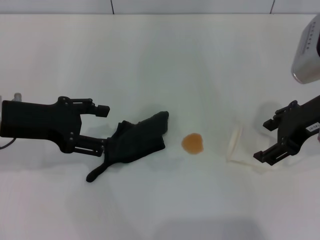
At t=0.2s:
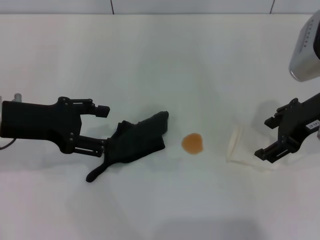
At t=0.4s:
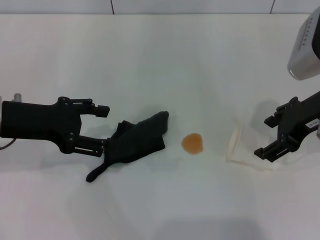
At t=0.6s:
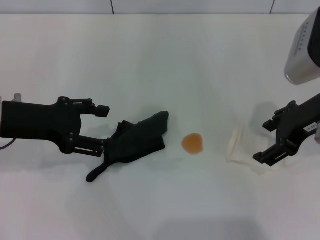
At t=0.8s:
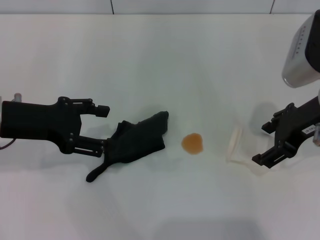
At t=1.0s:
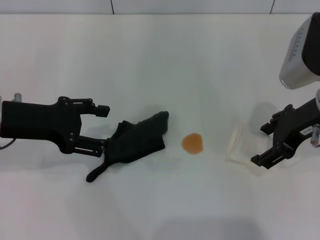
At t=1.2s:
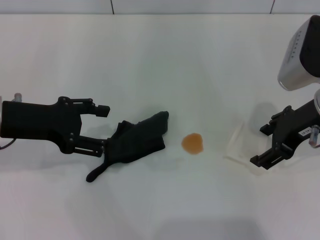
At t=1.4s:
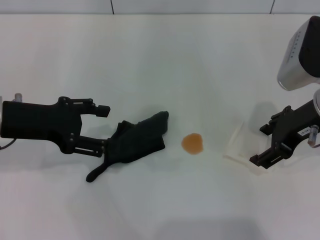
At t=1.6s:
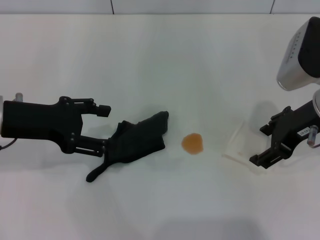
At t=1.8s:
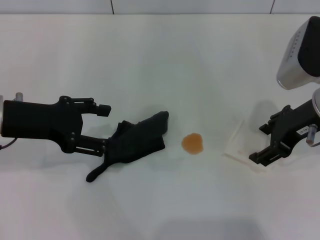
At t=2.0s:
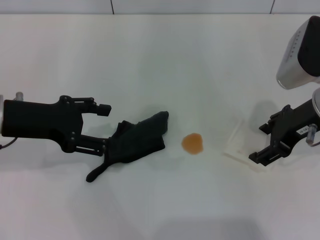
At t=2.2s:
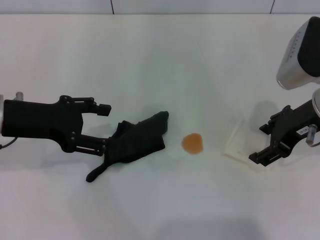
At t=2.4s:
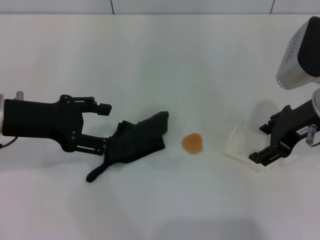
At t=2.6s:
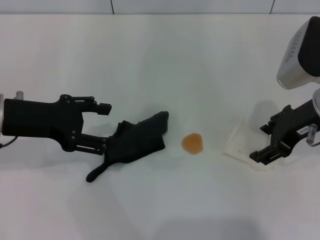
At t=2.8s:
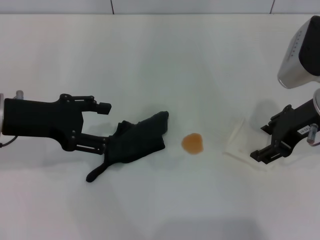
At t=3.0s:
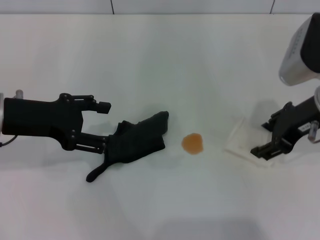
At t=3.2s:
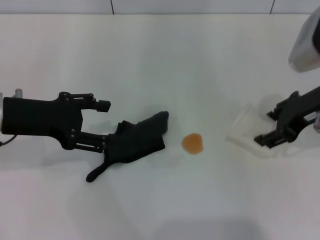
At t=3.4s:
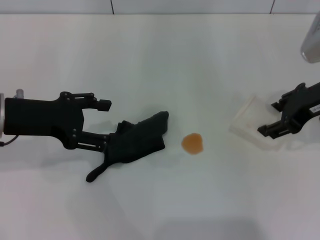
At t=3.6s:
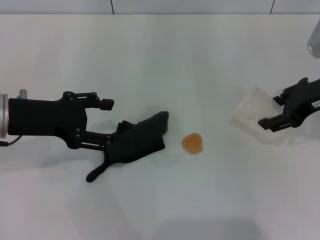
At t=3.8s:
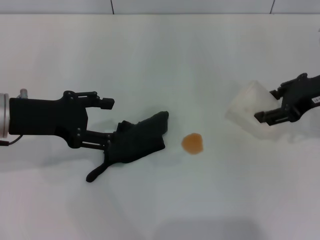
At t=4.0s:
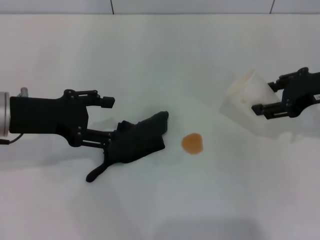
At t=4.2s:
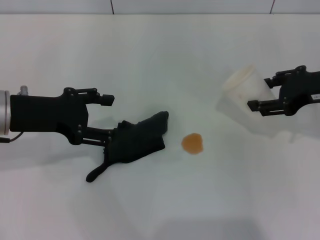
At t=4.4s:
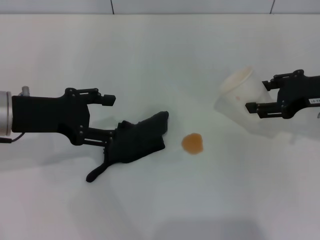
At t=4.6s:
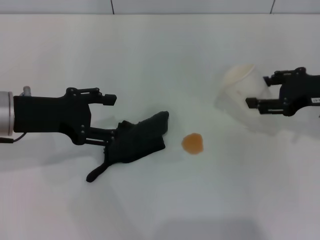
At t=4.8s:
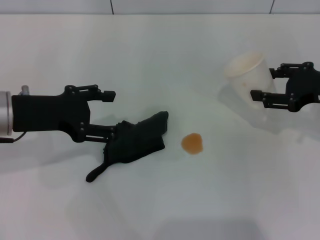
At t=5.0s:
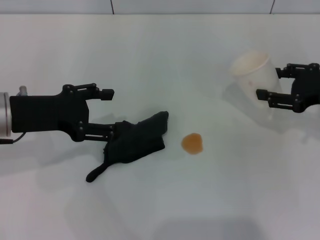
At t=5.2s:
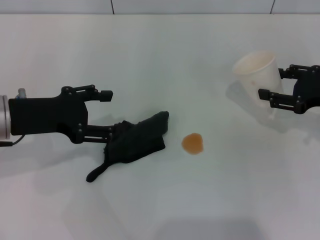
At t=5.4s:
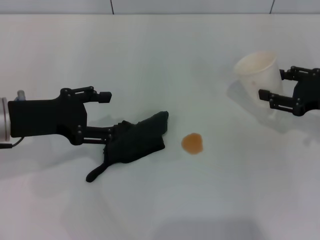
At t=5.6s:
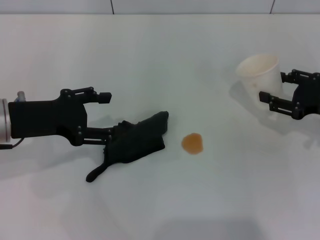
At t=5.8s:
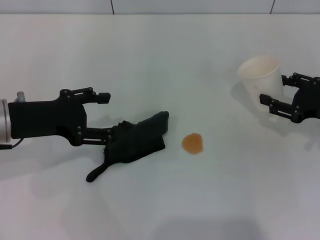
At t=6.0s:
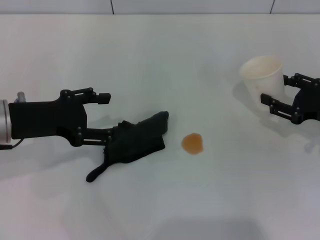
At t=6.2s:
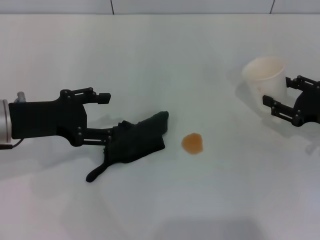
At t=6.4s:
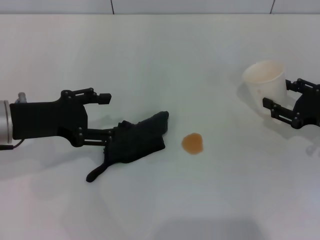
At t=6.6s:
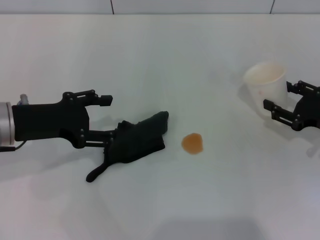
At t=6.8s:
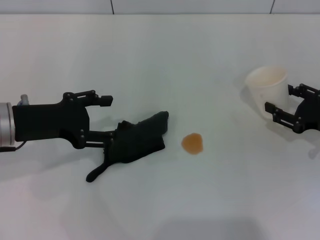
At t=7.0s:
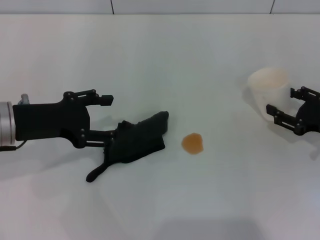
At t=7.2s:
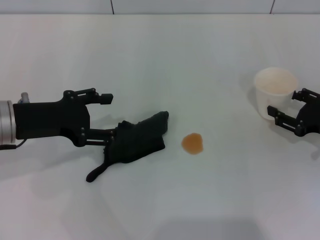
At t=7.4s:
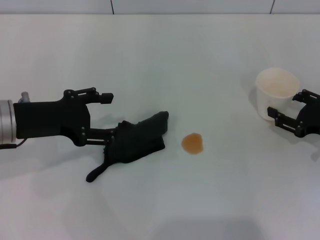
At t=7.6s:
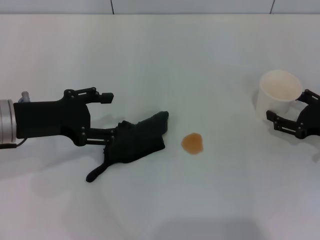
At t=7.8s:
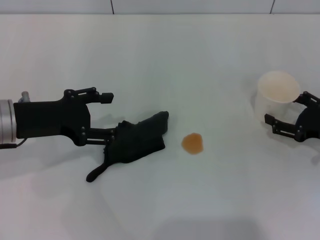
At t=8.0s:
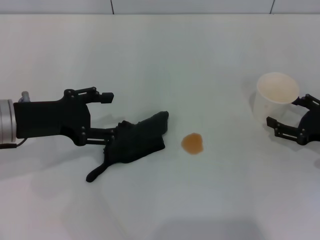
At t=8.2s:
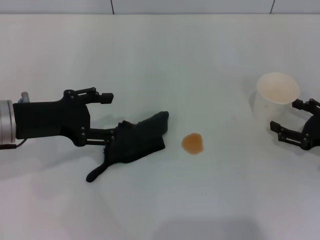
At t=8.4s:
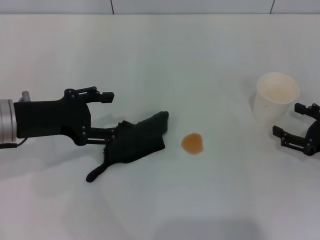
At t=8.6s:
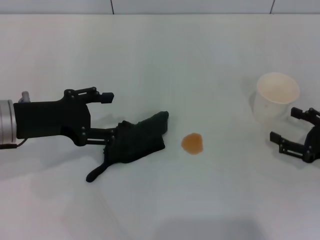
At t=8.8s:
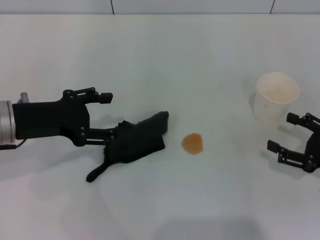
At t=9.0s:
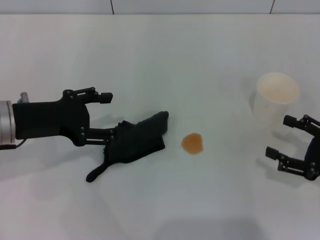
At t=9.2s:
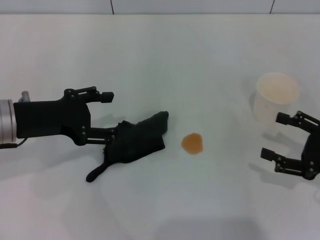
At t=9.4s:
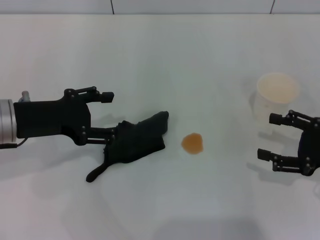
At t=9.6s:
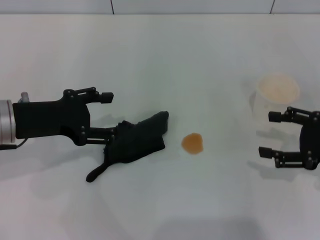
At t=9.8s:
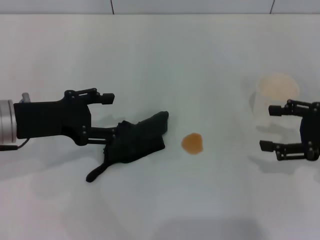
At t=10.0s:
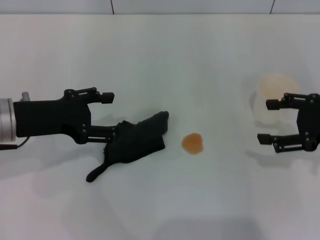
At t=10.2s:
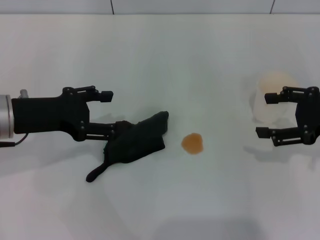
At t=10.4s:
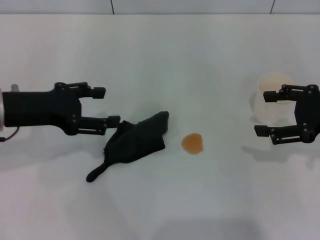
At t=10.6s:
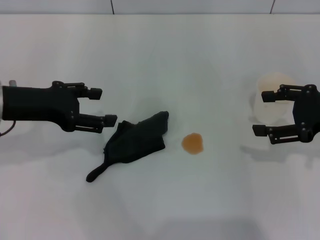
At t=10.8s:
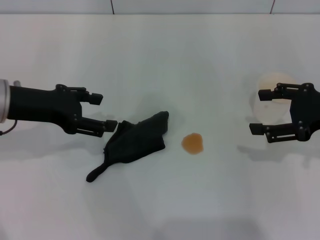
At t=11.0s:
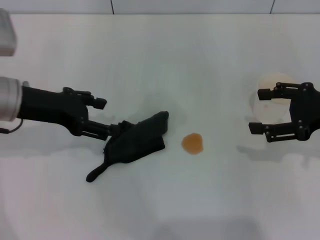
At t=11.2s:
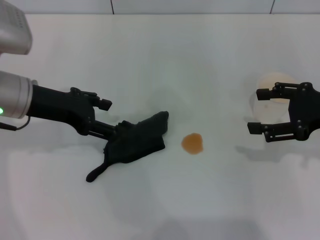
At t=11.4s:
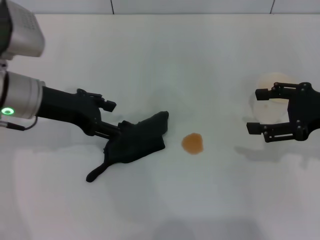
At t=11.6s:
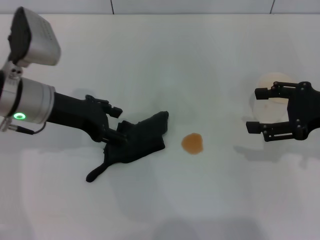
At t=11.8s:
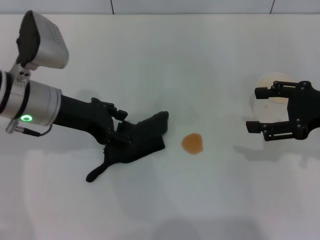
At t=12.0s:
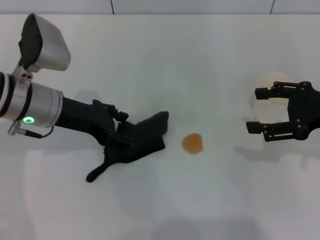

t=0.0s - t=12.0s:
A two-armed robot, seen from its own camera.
Step, t=0.0s - t=2.0s: Grasp the paper cup with the right gripper.
Step, t=2.4s - t=8.4s: Stand the paper cup upright with the right gripper.
t=0.0s - t=1.6s: The grippers stay close to where they were, moving slightly.
t=1.6s - t=3.0s: The right gripper closes up.
t=3.0s - t=4.4s: The right gripper moves to the right, some 5 cm.
t=4.4s - t=6.0s: The right gripper travels downward by some 10 cm.
t=6.0s - t=7.6s: The right gripper opens.
t=7.6s - t=9.0s: The right gripper heads backward, covering about 5 cm, and opens.
t=9.0s - t=10.4s: The right gripper travels upward and forward by some 10 cm.
t=10.4s - t=12.0s: The left gripper is displaced to the right by some 5 cm.

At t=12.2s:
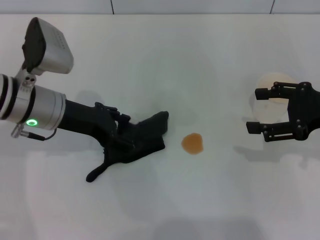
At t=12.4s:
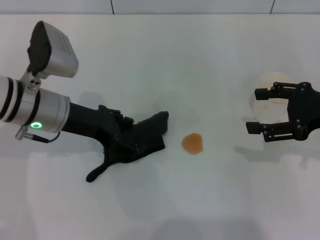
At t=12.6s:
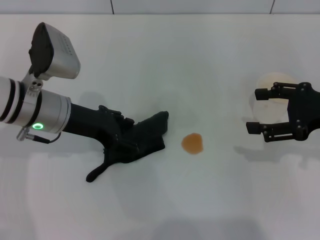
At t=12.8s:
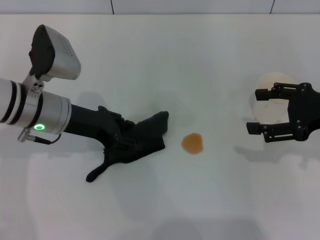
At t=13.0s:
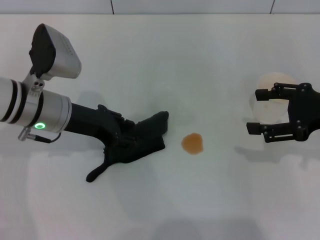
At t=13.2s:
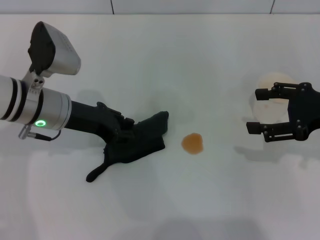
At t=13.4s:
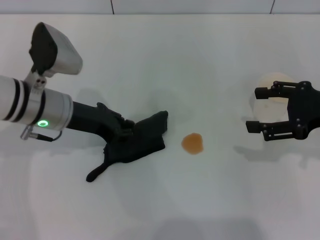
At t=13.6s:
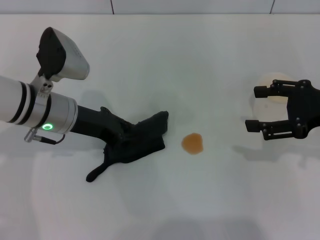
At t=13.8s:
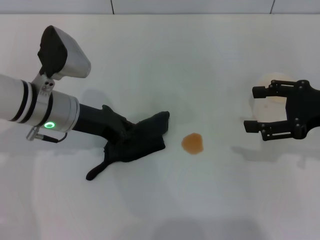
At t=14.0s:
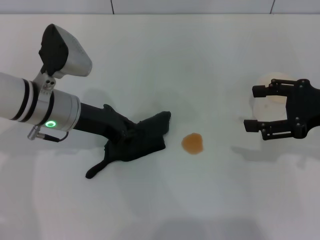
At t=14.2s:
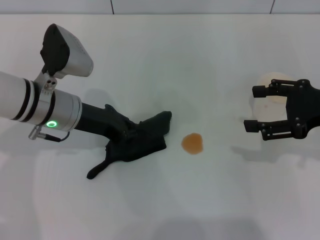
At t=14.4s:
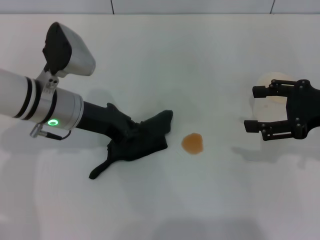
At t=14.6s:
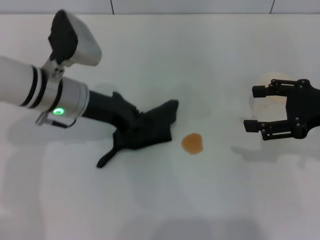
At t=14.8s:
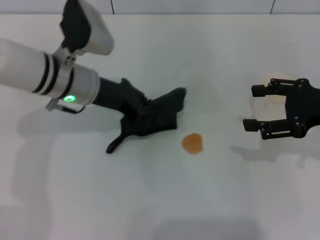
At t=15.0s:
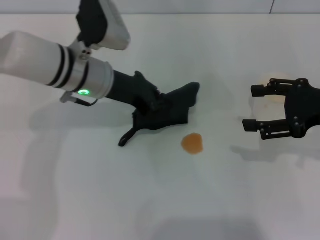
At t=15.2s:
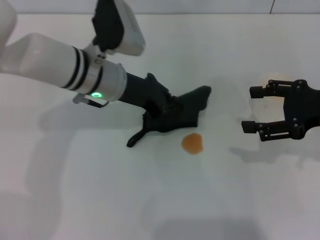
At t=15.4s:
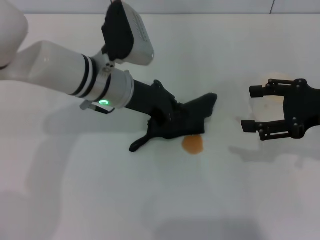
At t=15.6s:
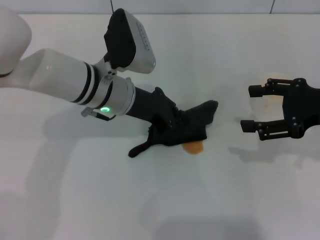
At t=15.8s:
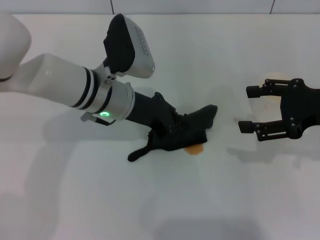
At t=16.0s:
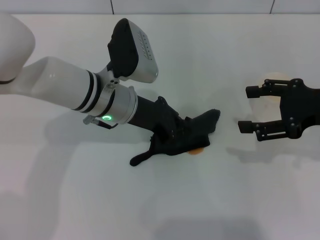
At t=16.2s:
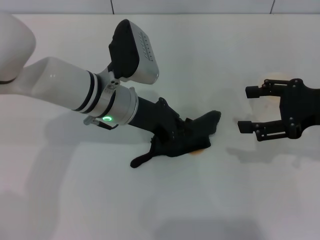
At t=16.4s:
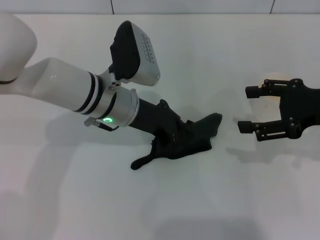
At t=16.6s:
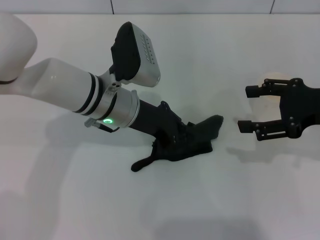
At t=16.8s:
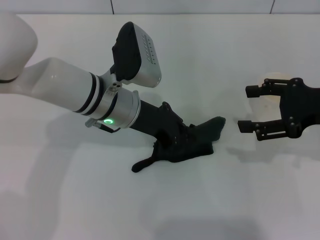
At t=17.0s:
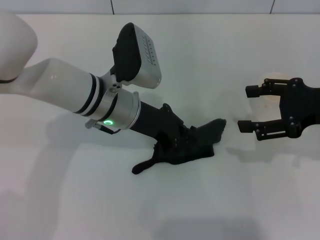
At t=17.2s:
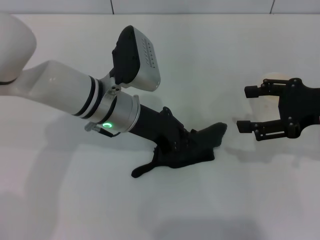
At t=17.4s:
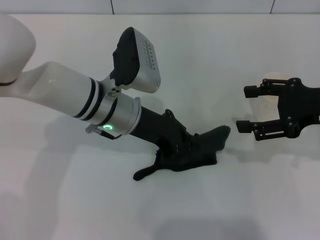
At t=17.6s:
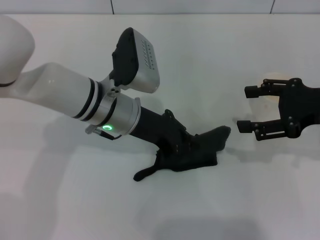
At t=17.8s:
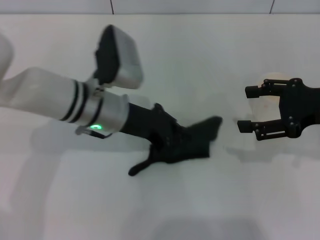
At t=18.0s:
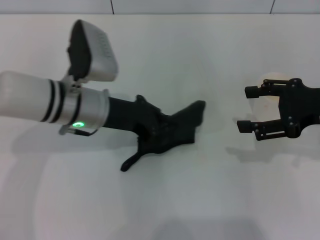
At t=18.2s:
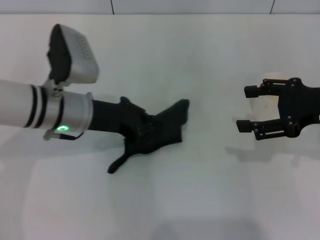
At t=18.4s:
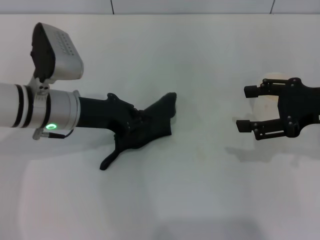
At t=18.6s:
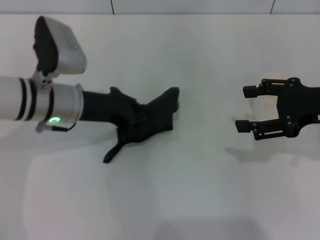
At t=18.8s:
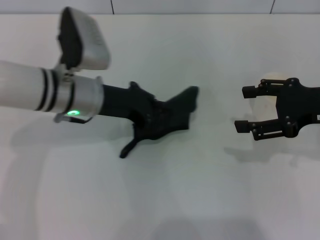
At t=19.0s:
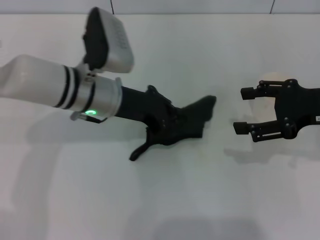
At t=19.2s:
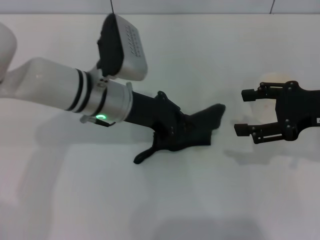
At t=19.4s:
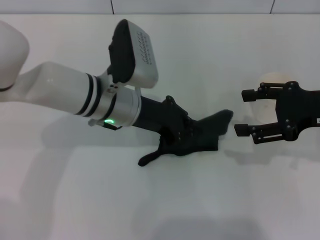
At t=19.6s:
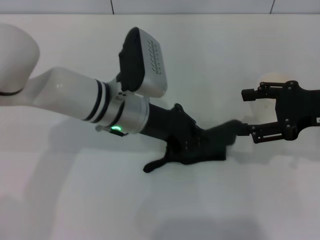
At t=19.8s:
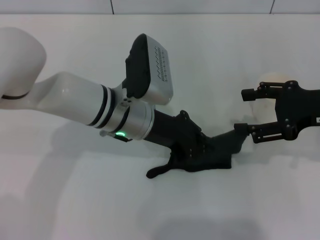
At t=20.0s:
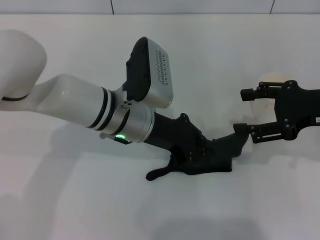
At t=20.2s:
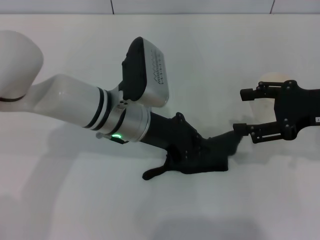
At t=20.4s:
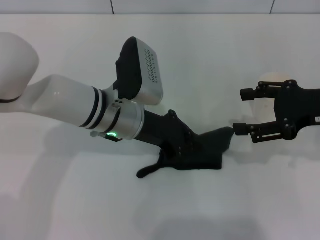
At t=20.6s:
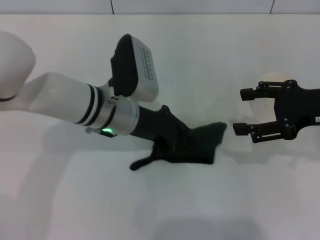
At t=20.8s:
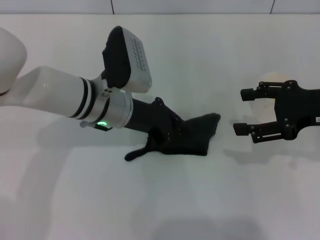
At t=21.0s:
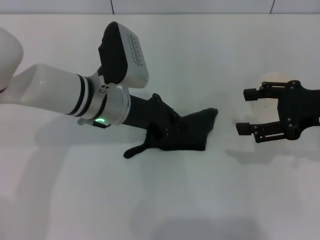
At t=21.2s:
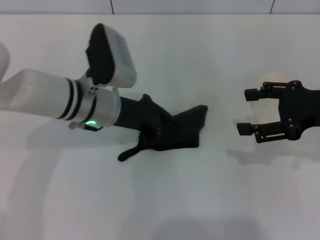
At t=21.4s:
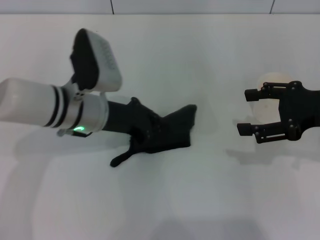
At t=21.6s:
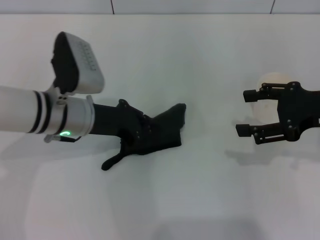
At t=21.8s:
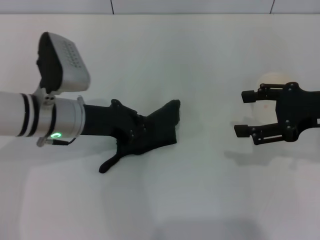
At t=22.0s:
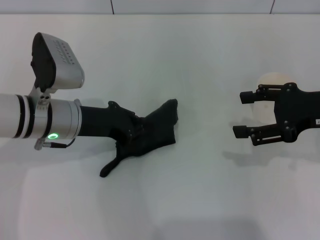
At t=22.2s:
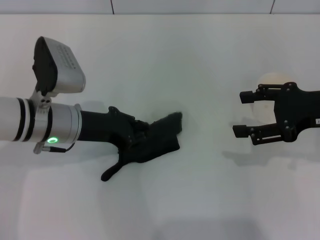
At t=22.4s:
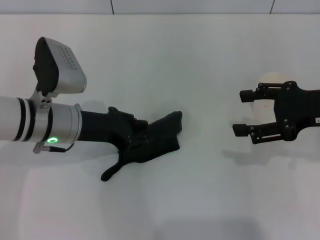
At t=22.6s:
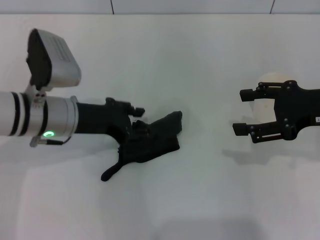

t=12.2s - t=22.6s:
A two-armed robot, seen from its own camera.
Step, t=13.8s - t=20.6s: Wipe the stains off the table with the left gripper.
t=12.2s - t=13.6s: The left gripper closes up.
t=13.6s - t=15.2s: The left gripper heads to the right, covering approximately 5 cm.
t=16.6s - t=18.2s: The left gripper goes roughly 5 cm to the left.
t=18.2s - t=19.6s: The left gripper heads to the right, covering approximately 10 cm.
t=19.6s - t=21.2s: The grippers make only small movements.
t=21.2s - t=22.6s: The left gripper goes about 5 cm to the left, and opens up.
